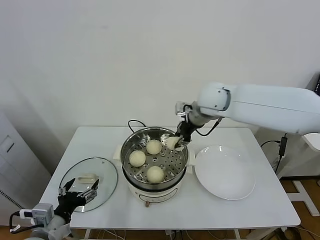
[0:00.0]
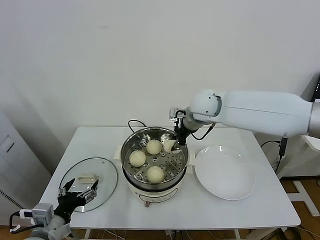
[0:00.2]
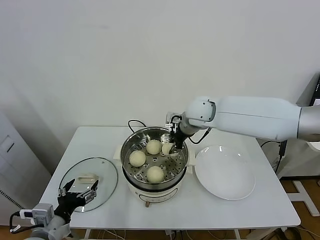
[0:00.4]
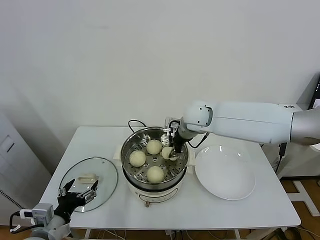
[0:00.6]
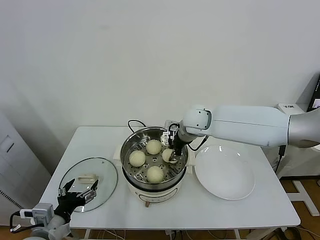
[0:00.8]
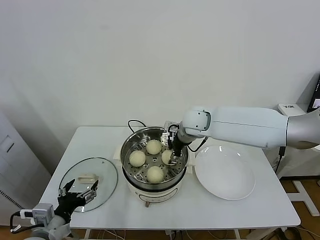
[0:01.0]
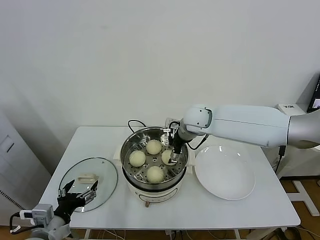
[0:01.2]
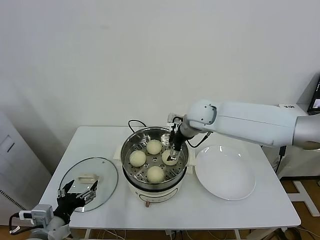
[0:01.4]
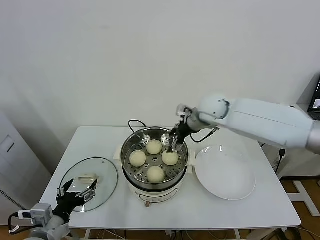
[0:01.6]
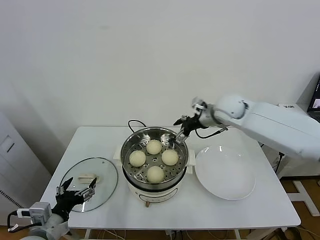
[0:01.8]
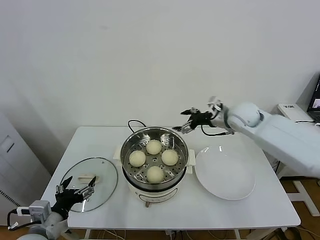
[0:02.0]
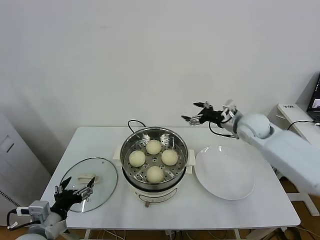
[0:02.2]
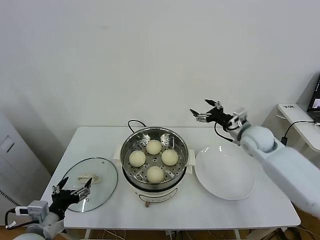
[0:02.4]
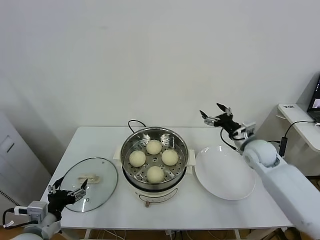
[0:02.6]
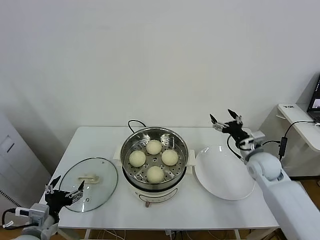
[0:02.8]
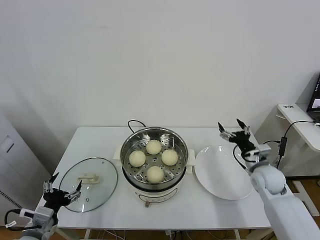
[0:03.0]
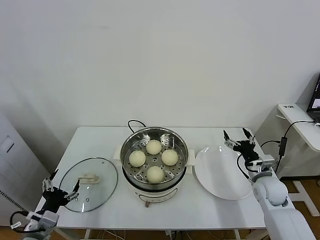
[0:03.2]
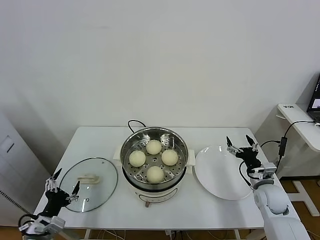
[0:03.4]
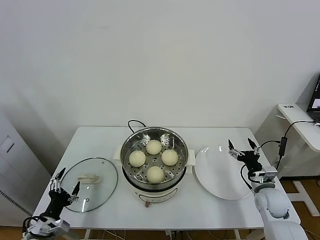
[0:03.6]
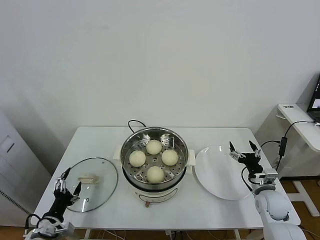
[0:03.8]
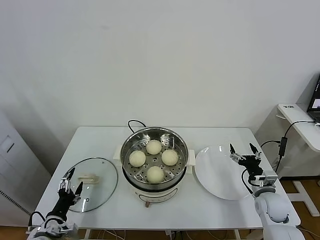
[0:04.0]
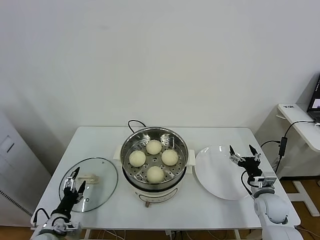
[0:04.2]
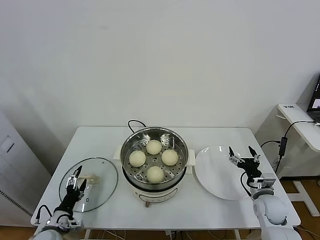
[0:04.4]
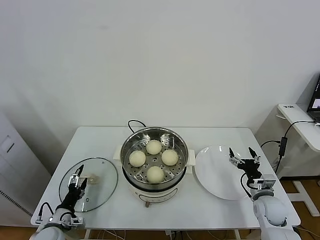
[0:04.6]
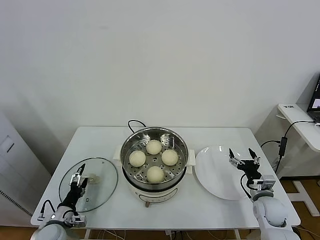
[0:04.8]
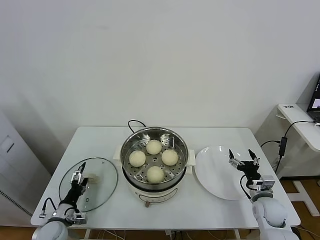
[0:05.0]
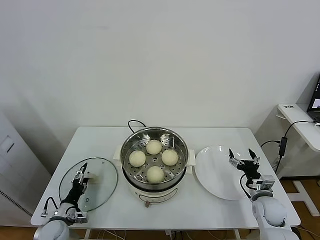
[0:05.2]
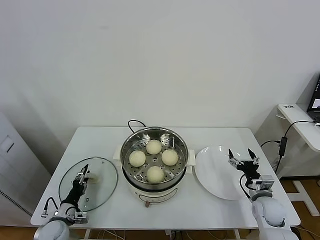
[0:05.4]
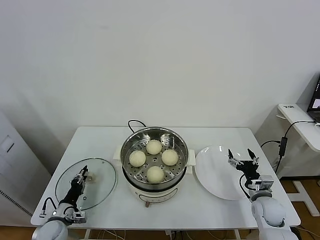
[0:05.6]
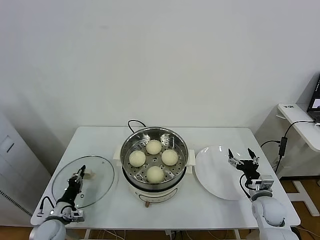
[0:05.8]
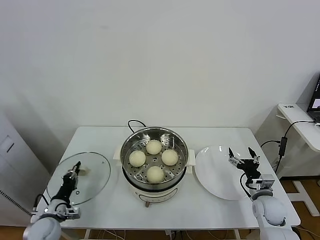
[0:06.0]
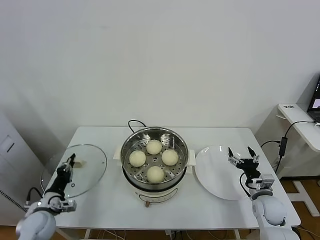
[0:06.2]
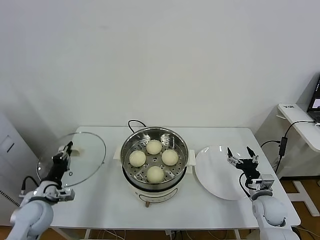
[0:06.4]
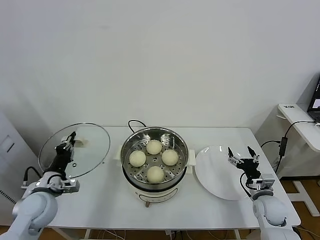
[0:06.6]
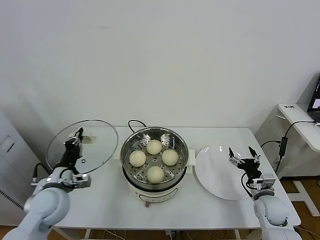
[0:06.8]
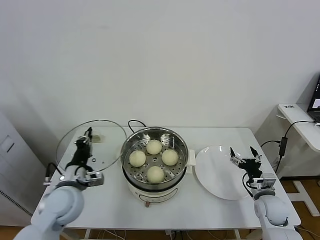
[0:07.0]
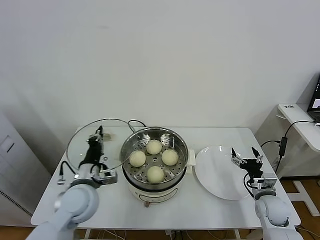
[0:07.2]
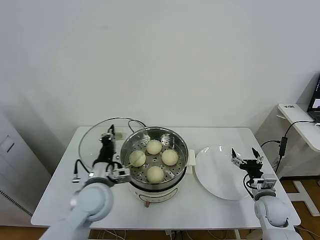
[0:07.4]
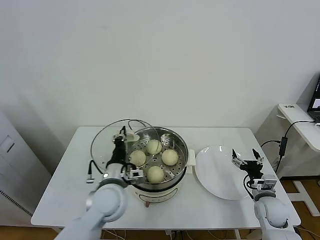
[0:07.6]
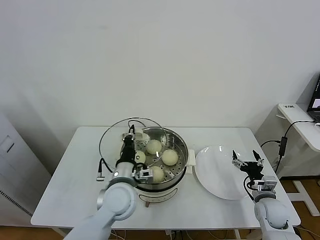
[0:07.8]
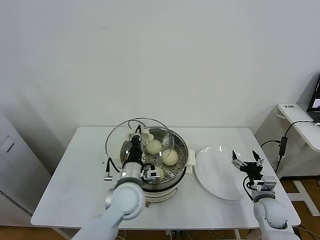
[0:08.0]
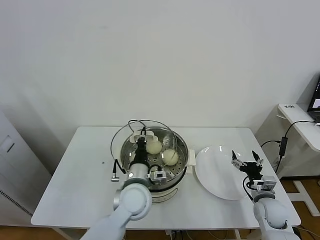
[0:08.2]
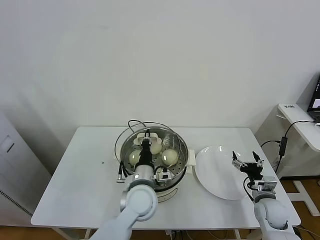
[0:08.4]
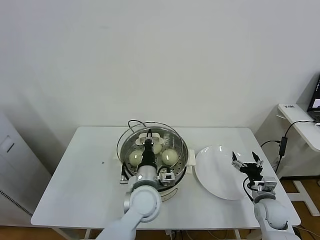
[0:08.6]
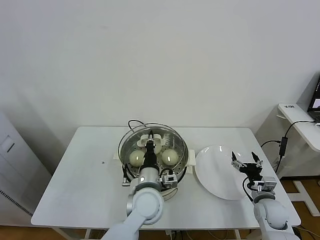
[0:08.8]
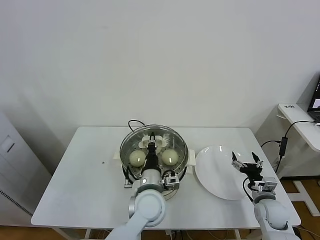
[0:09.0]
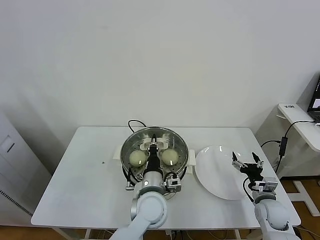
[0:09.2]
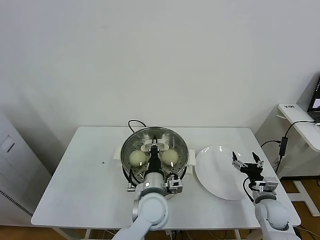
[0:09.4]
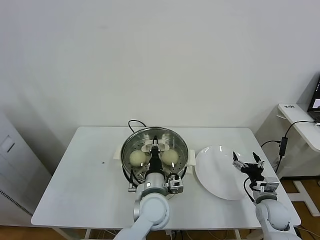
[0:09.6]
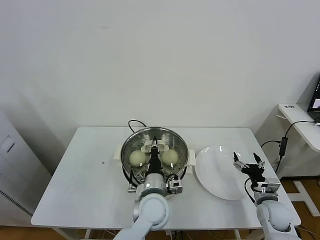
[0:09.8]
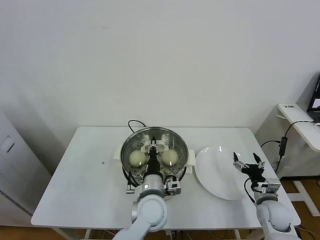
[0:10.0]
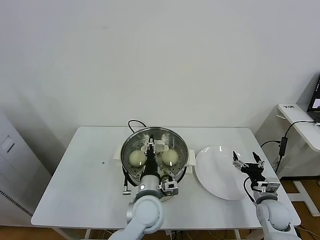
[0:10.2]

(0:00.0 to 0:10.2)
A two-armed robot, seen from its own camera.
Task of the whole recording: take steamed baozi put them in steamer.
Step, 0:01.4 - 0:05.8: Grasp the pot lid with left gripper.
0:00.0 - 0:01.4: The right gripper is displaced downward by about 5 cm, and opens up.
0:01.4 - 0:03.0: The left gripper ends up about 5 cm from where it was. The right gripper is displaced to the right, downward and backward by roughly 30 cm.
0:03.0 - 0:04.4: The left gripper is displaced downward by about 10 cm; the right gripper moves downward and backward, about 10 cm.
0:04.4 - 0:05.8: The left gripper closes up.
0:05.8 - 0:07.2: The left gripper heads upward and to the right, covering approximately 25 cm.
0:07.2 - 0:08.8: The left gripper travels to the right by about 20 cm.
0:08.8 - 0:10.2: The left gripper opens up.

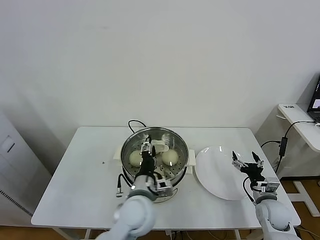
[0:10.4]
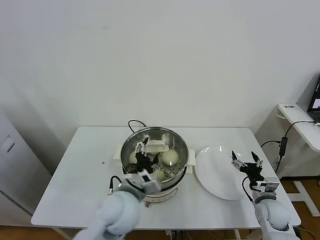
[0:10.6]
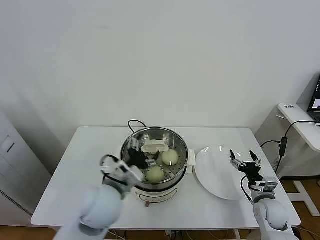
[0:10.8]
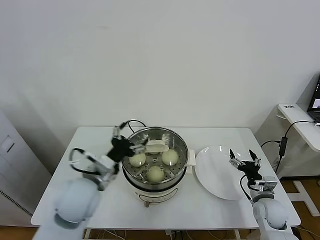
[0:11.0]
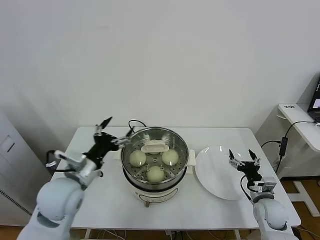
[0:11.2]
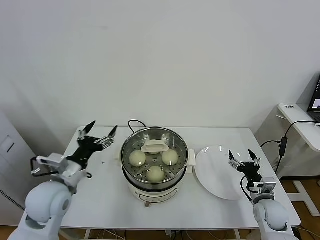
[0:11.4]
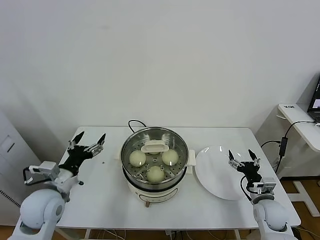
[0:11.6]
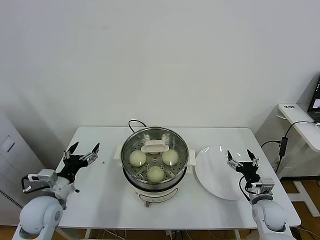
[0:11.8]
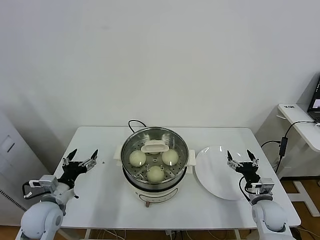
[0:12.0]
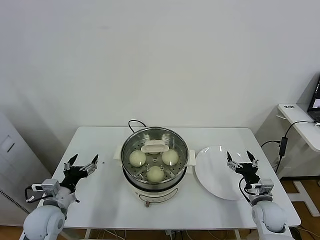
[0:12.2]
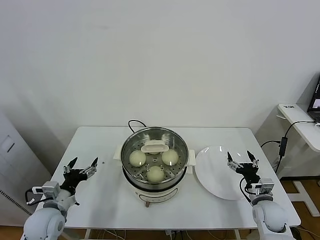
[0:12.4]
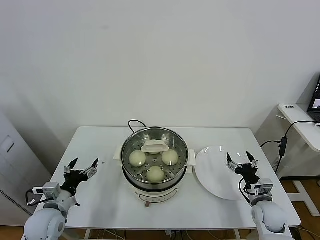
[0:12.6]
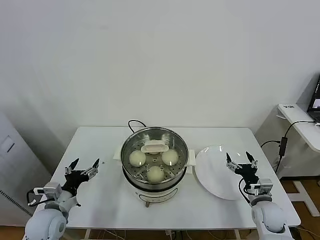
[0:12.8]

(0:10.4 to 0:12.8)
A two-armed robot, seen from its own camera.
Task of the whole recording: take steamed baozi put them in steamer.
0:10.4 - 0:11.6: The left gripper moves to the left, roughly 25 cm, and opens up.
0:11.6 - 0:12.8: The left gripper shifts approximately 10 cm downward.

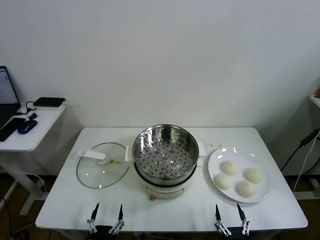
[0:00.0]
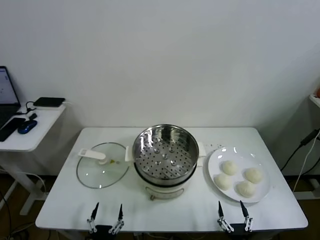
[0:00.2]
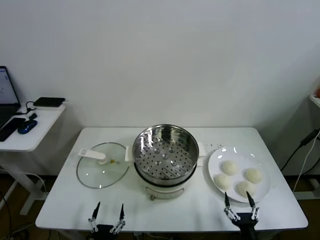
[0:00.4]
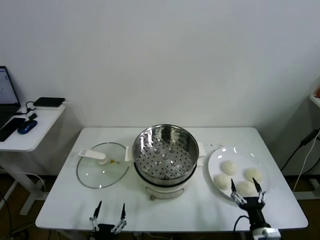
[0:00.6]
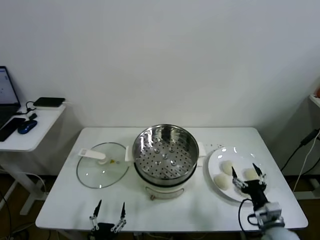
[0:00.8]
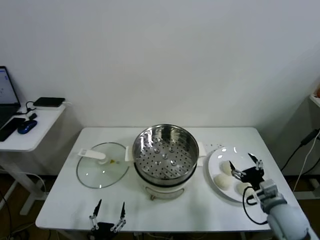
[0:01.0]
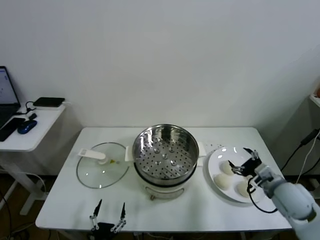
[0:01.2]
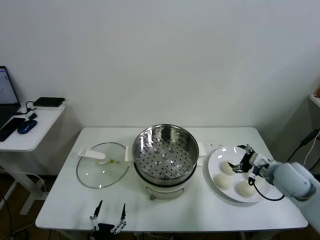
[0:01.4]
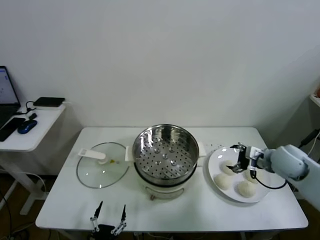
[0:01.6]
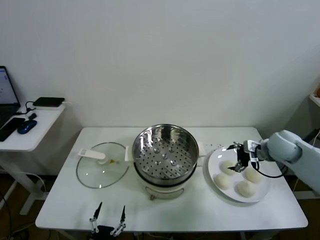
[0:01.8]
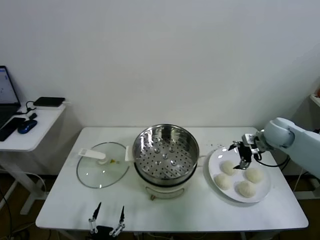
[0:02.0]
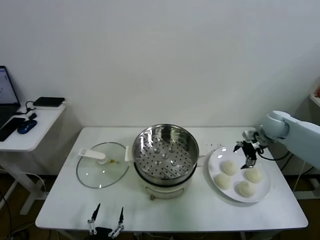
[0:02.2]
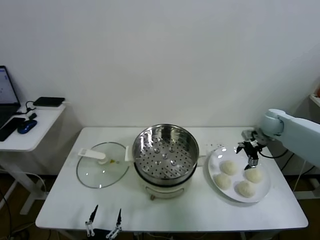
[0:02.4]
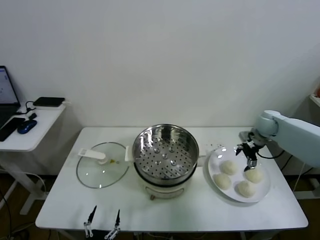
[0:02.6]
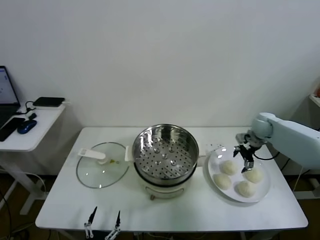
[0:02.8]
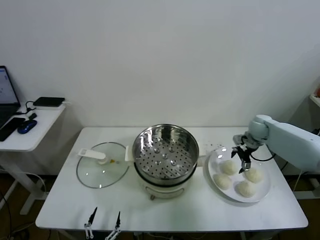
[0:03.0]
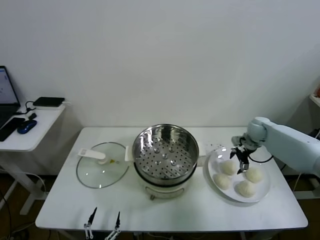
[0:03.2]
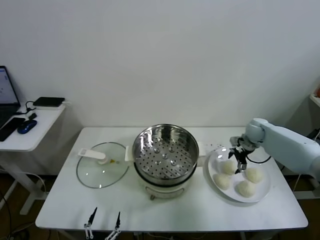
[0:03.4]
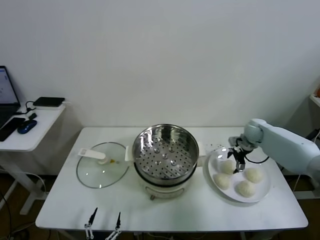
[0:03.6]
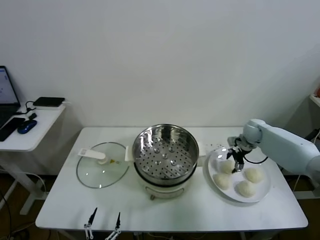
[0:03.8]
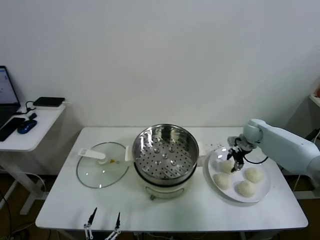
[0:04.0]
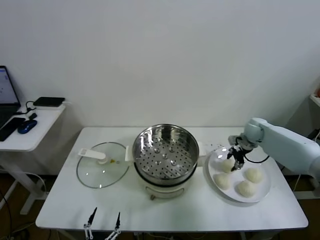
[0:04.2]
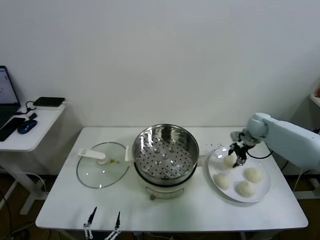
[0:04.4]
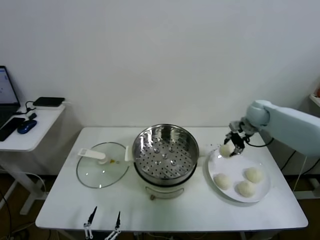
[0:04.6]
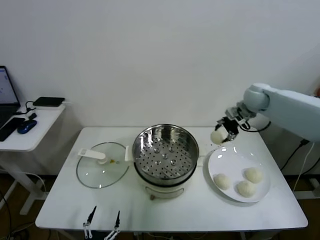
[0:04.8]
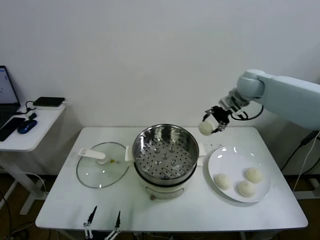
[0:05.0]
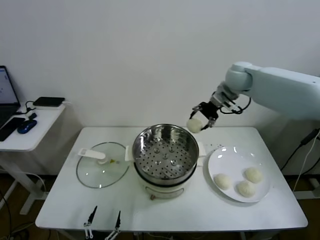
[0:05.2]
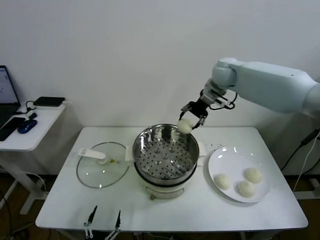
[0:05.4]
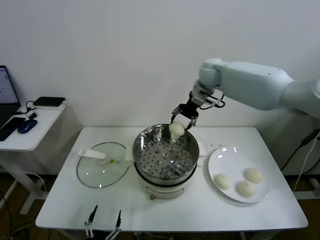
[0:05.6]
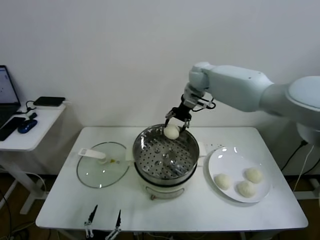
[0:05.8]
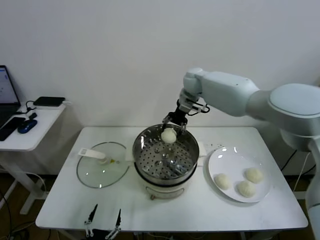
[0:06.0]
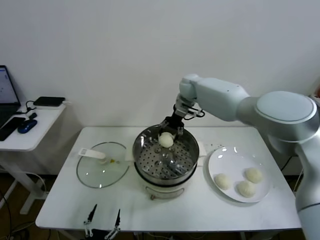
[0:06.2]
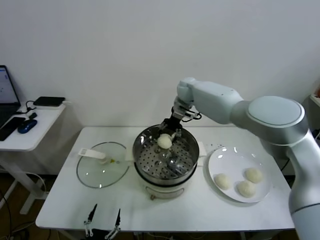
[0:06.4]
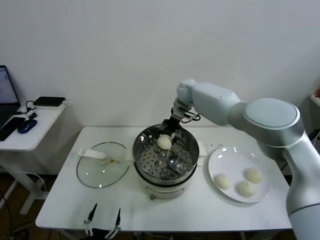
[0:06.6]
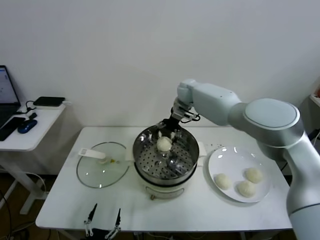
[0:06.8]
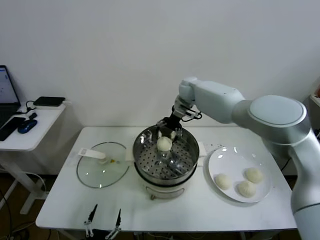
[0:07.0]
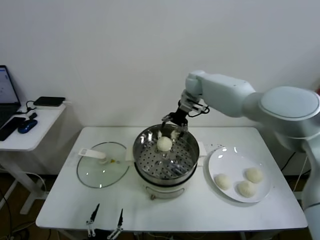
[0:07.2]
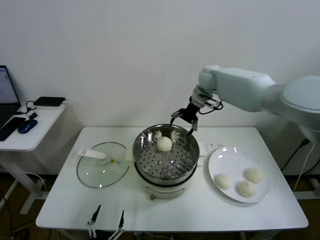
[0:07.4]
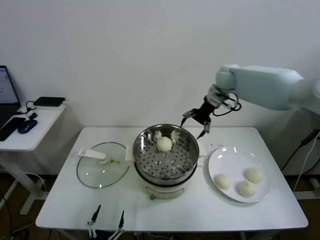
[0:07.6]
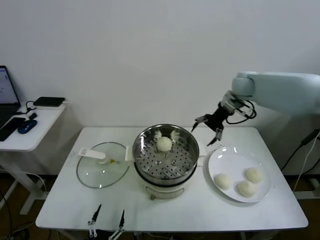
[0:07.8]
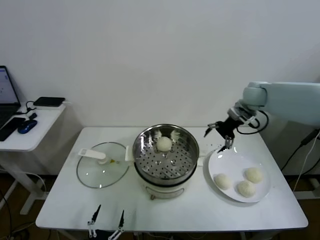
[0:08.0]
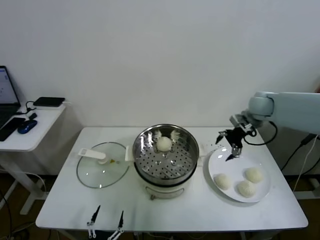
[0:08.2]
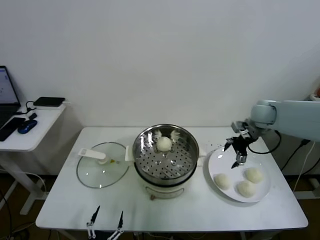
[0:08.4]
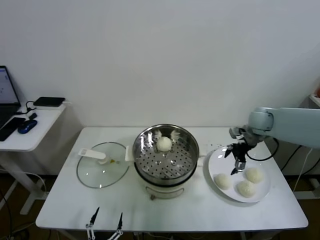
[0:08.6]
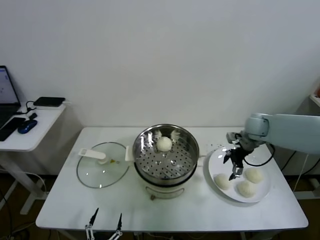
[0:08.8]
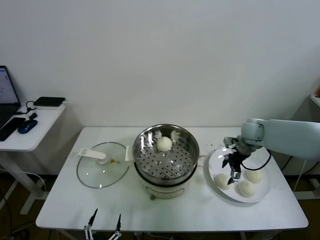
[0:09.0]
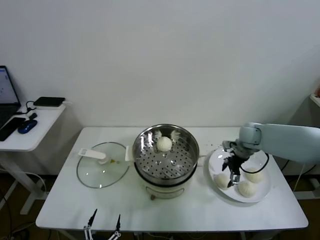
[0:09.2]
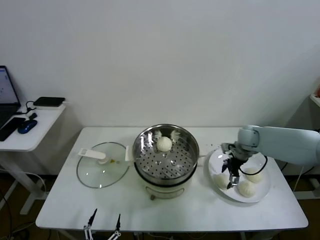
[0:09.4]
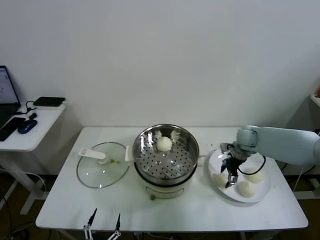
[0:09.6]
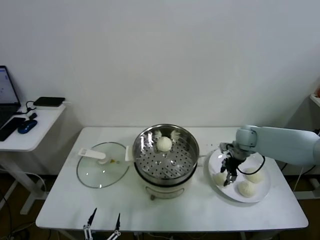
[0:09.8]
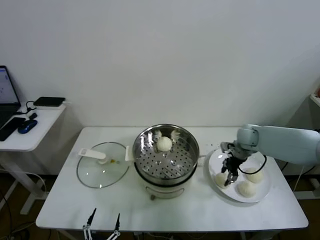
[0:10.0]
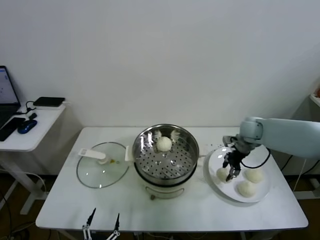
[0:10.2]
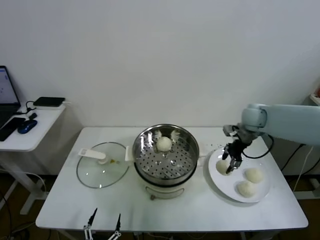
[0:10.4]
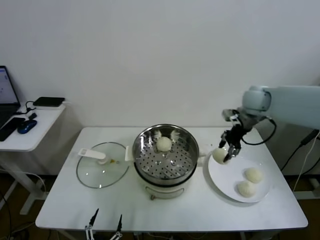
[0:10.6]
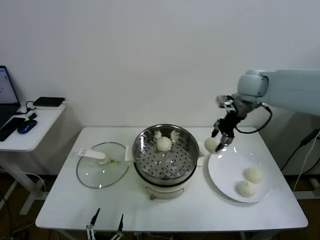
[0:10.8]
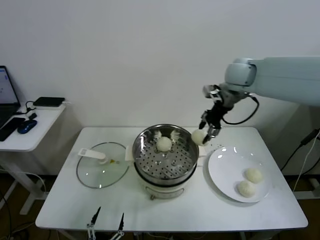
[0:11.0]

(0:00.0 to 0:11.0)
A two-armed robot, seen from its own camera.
Task of the whole recording: take steamed baozi put them in steamer.
Step, 0:00.0 - 0:04.0: Grasp the baozi in the plate with right gripper.
Step, 0:04.2 - 0:06.8: Place the baozi on the steamer with right gripper.
Step, 0:07.2 - 0:09.8: Grasp the baozi in the plate with right gripper.
0:01.6 - 0:03.2: The right gripper shifts approximately 15 cm forward.
0:03.2 - 0:04.8: The right gripper goes some 20 cm upward and to the left, and closes.
0:04.8 - 0:06.2: The right gripper goes about 20 cm to the left.
0:06.2 - 0:07.8: The right gripper heads to the right, covering about 20 cm, and opens its fingers.
0:07.8 - 0:09.4: The right gripper shifts approximately 20 cm downward.
0:09.4 - 0:11.0: The right gripper travels upward and to the left by approximately 30 cm, and closes up.
